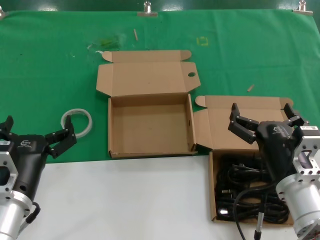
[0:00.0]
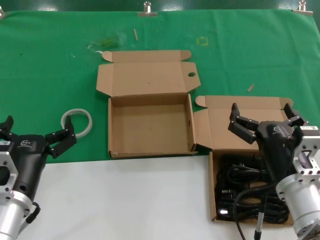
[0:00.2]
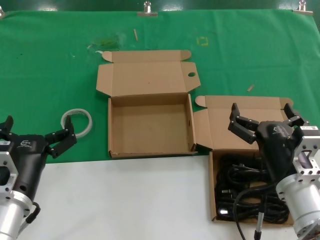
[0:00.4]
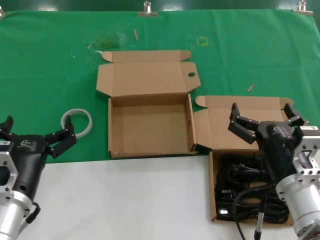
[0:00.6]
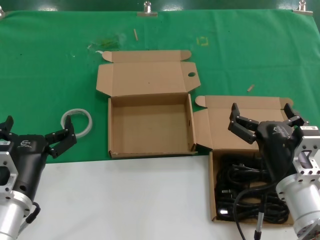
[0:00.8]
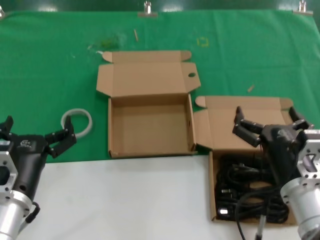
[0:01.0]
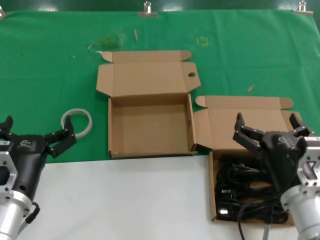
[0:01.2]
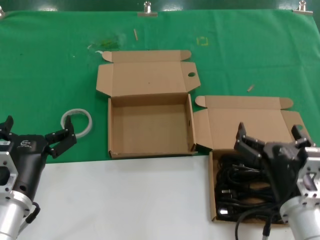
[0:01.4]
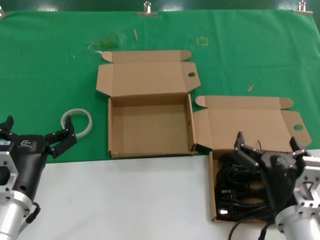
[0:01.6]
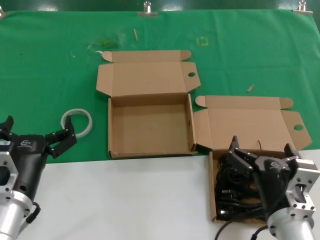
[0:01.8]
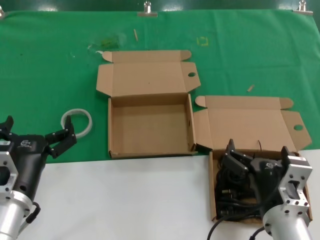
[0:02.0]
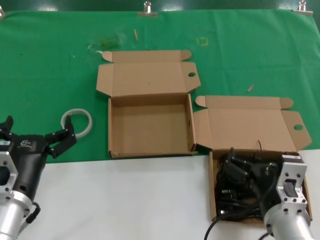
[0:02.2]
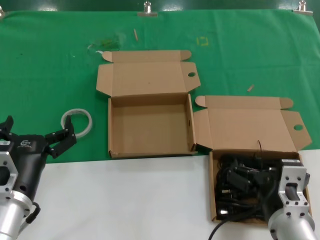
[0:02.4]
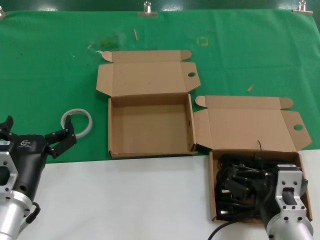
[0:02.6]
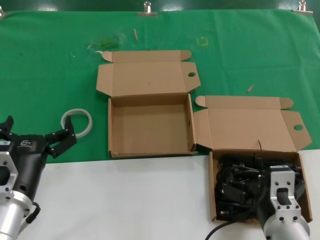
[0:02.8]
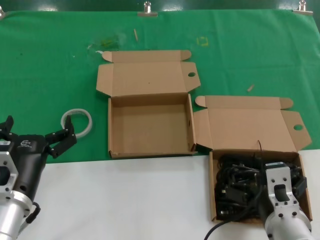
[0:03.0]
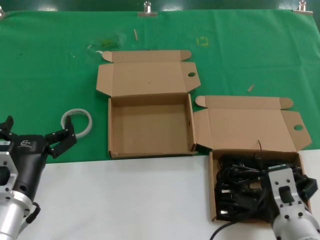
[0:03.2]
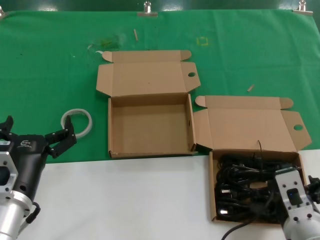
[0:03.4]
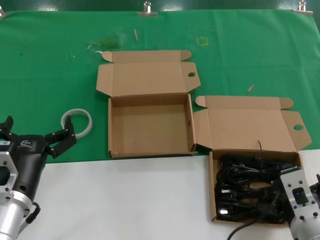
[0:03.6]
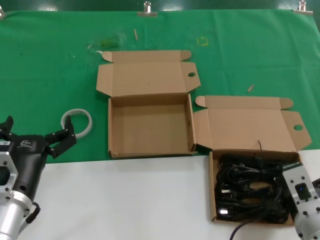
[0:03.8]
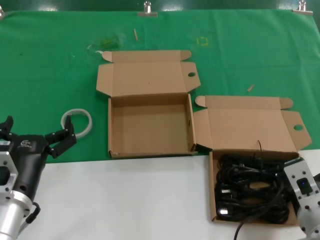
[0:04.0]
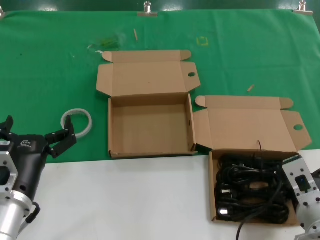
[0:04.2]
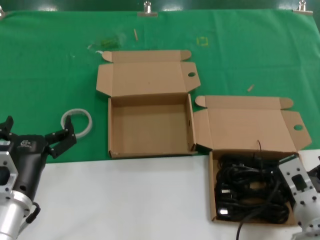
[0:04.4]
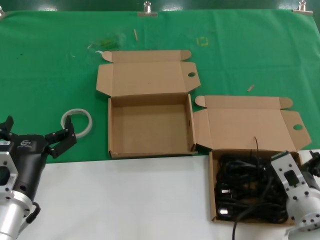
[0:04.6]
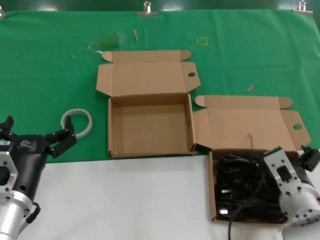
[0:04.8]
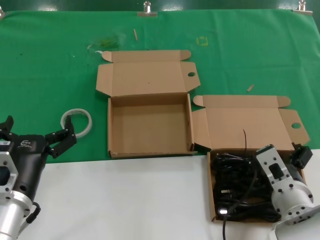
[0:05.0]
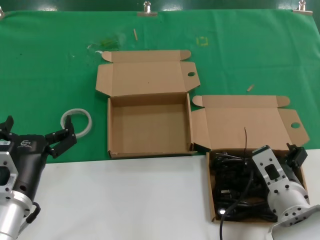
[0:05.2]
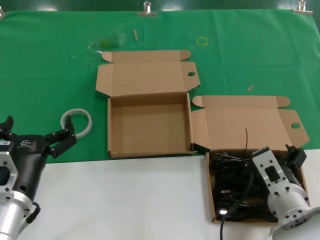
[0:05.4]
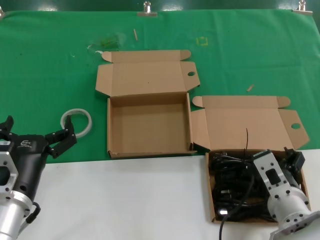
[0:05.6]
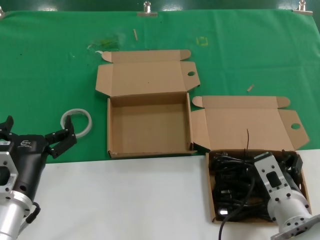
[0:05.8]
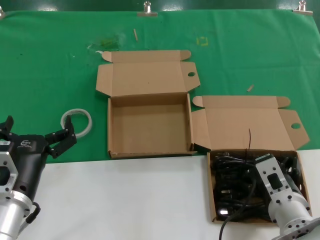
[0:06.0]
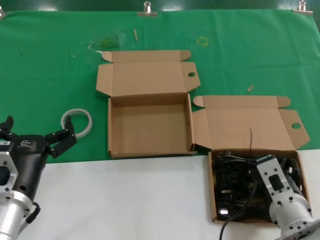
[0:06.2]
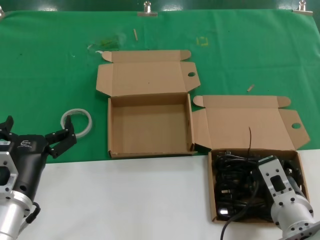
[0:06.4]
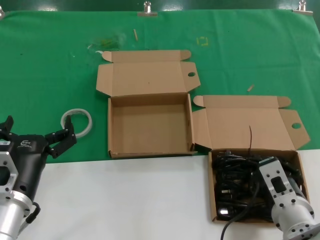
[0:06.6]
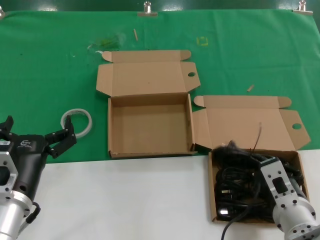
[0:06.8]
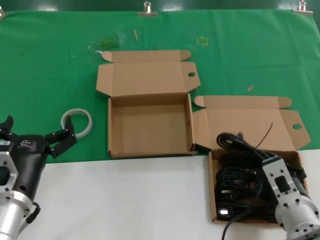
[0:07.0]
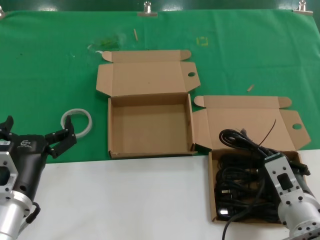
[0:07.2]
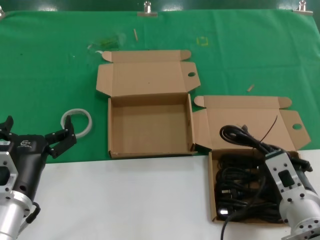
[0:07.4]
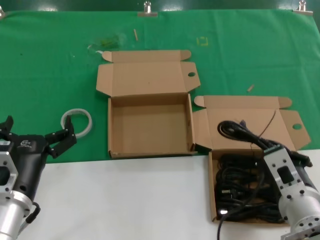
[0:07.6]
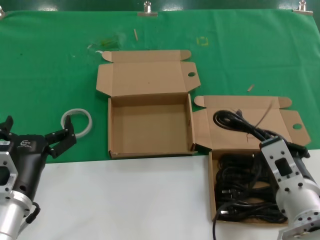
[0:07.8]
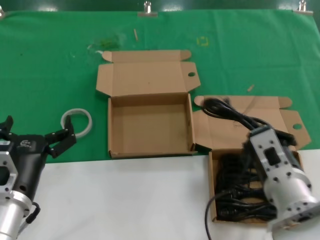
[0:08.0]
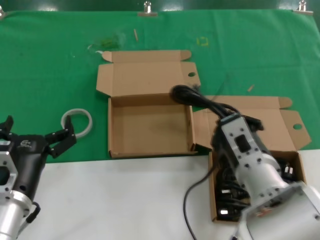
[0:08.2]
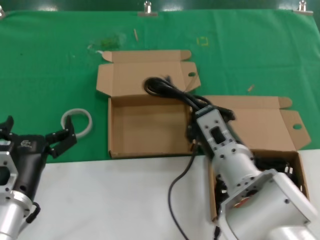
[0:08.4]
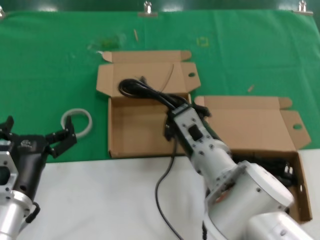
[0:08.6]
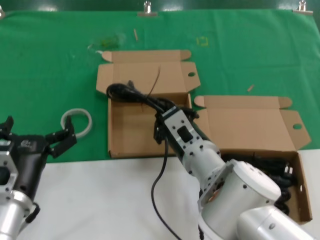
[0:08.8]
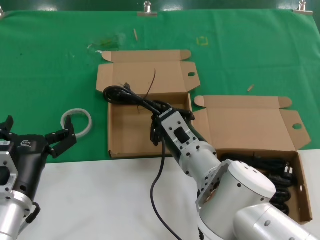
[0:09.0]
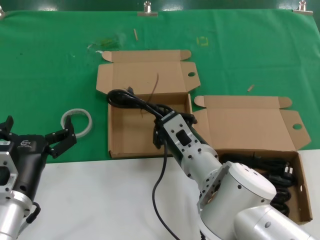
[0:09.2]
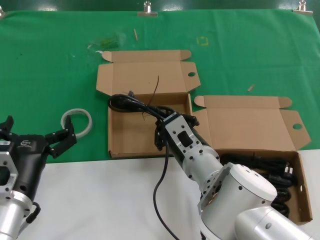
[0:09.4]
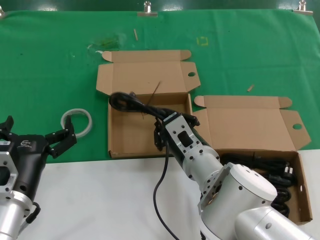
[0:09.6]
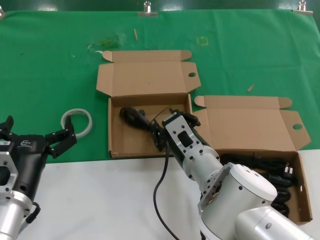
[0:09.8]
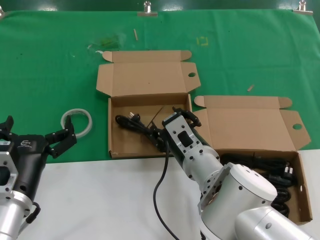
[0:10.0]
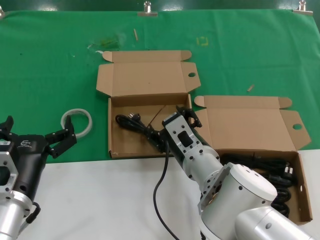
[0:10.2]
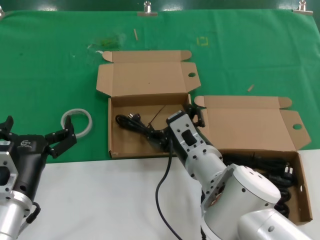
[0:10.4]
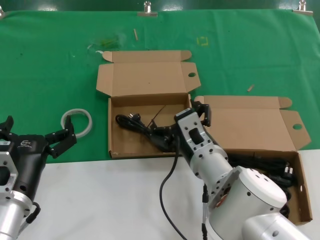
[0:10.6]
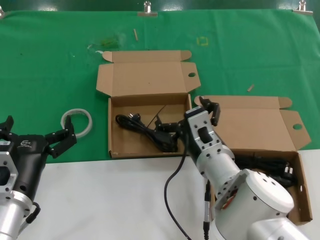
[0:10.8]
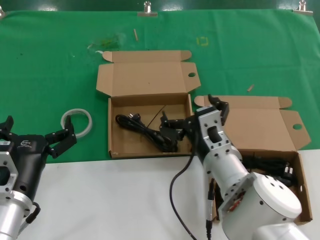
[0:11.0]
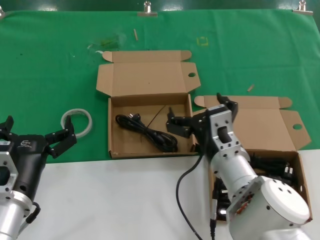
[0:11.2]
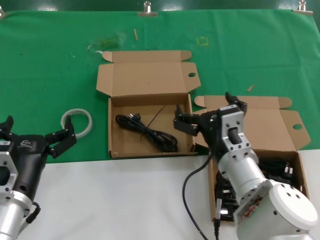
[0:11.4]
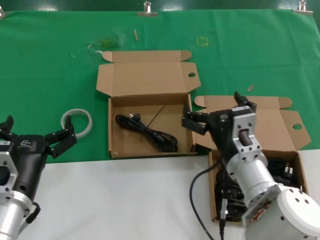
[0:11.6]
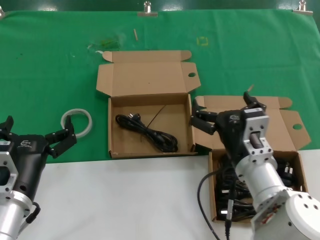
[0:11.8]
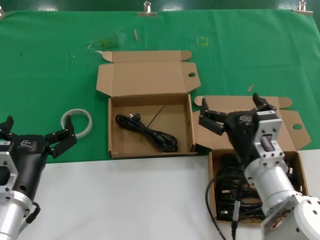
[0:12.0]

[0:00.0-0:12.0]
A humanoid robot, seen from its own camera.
Task of the whole recording: take the parts from the box containing them and put them into an empty box.
Step, 0:00.0 to 0:07.0: Grasp the data cable.
Step, 0:07.2 to 0:09.8: Place the data cable in the another box.
0:00.0 to 0:01.6: The right hand moves some 5 cm.
0:03.0 to 0:04.4: The right hand heads to the right, covering some 5 cm.
0:04.4 to 0:06.0: The hands move only a little.
0:06.0 to 0:07.6: The right hand shifts by approximately 5 cm.
0:07.6 to 0:09.0: The right hand is displaced to the left and forward by about 15 cm.
0:09.0 to 0:10.4: The two hands keep their place.
0:10.4 to 0:12.0: The right hand heads to the right, covering approximately 10 cm.

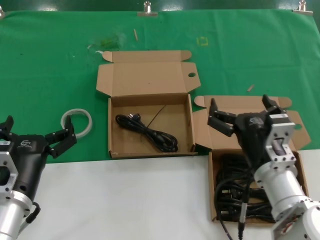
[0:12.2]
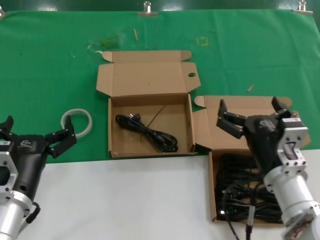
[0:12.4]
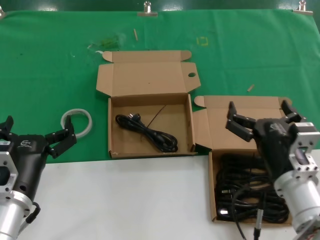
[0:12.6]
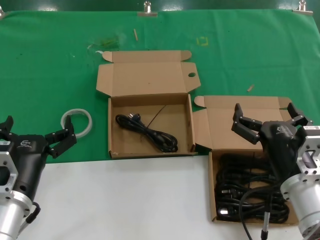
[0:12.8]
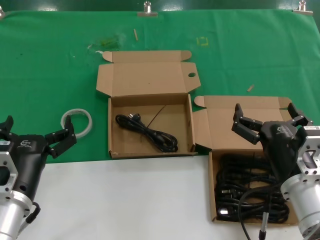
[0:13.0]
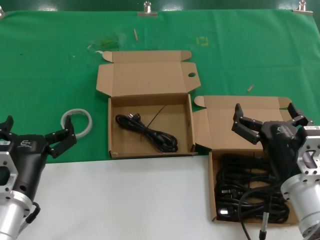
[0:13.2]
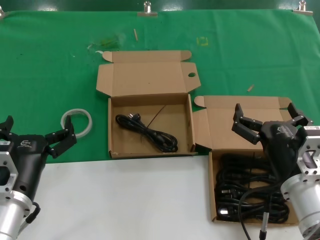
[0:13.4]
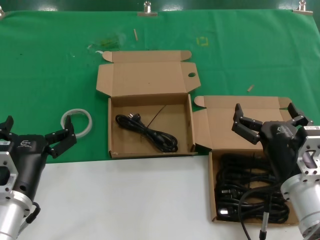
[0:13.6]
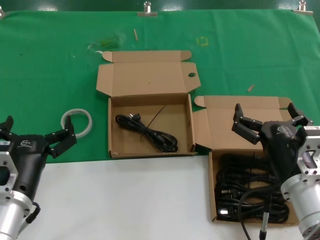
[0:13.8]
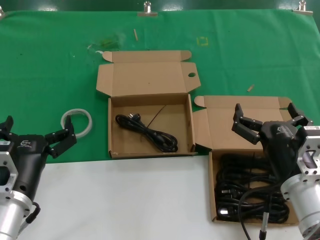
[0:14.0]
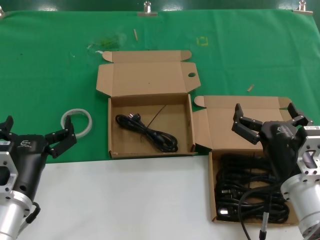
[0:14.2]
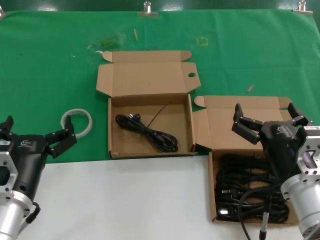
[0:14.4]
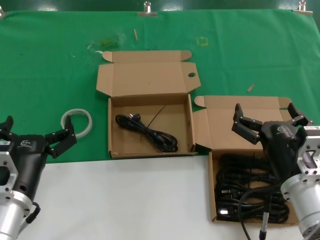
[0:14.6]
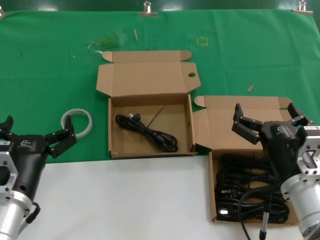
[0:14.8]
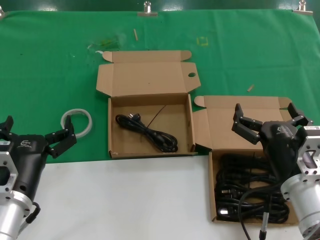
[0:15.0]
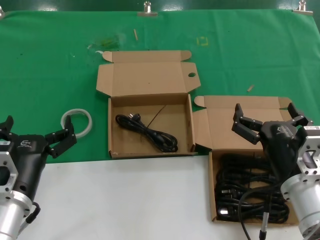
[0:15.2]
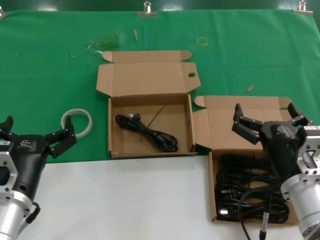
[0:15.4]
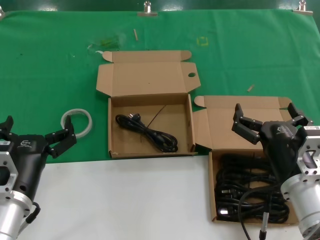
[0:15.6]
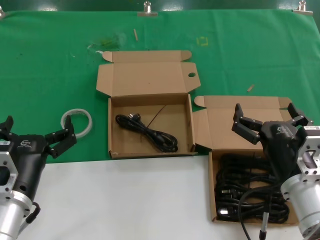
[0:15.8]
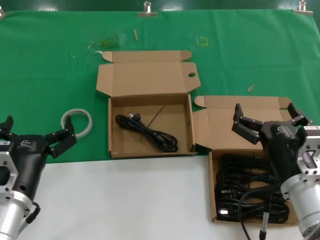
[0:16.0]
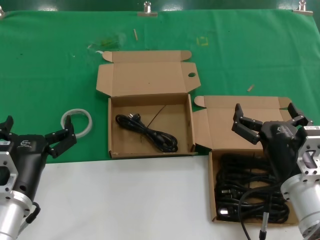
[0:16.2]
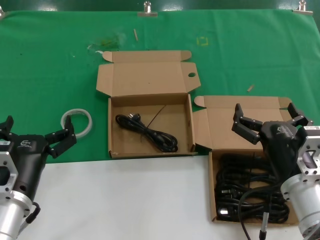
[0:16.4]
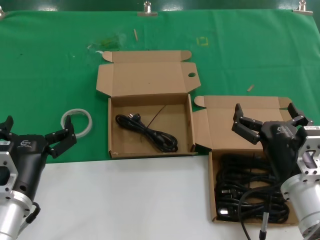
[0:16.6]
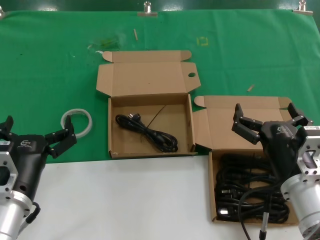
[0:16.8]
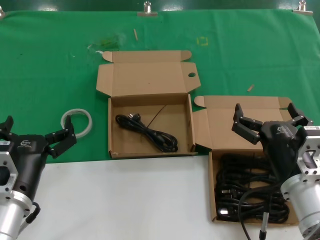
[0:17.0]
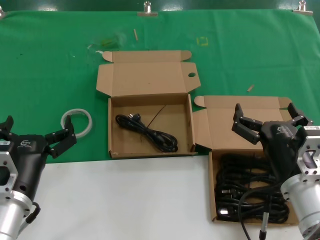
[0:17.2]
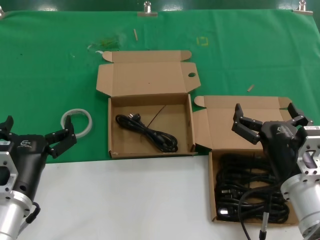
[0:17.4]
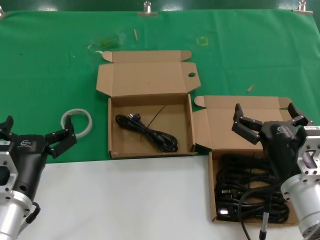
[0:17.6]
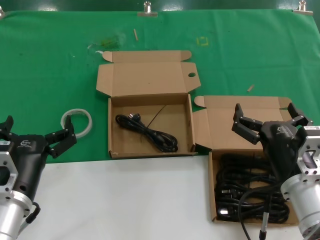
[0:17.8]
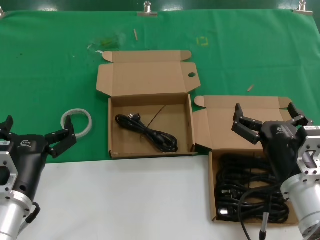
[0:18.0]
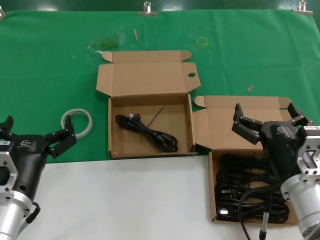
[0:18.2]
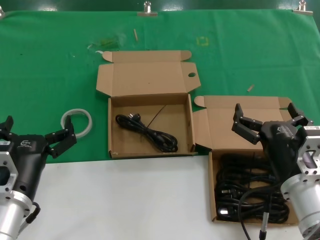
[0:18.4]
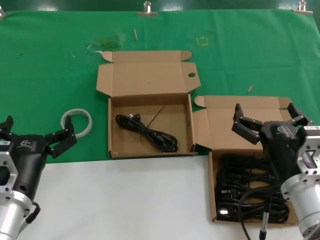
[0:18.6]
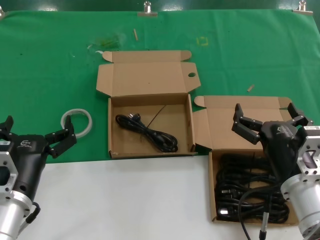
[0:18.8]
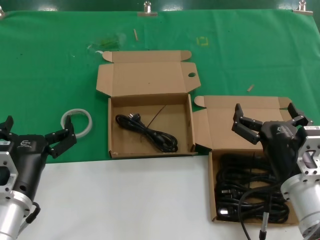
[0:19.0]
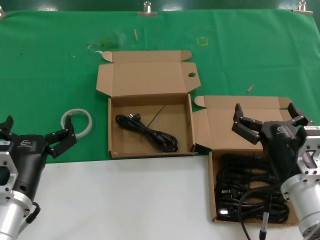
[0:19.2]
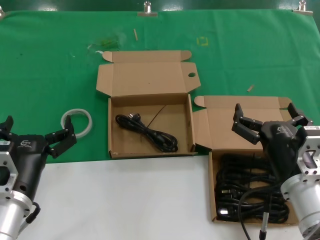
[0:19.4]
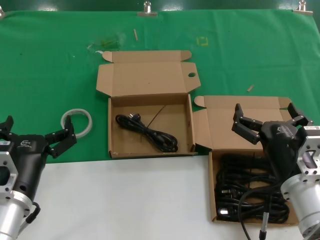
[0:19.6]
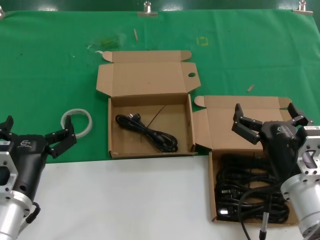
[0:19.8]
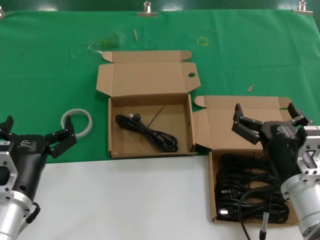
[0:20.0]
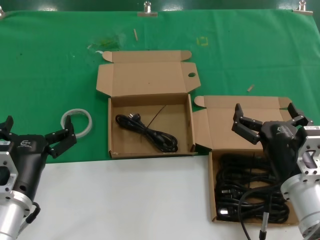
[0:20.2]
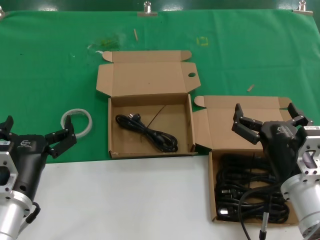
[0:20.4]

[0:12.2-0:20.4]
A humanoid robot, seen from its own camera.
Task of the whole recording: take the parts from the box containing them and put them into an empty box.
0:12.2 to 0:13.8: The hands make only small movements.
0:13.8 to 0:20.4: Both hands stay about where they are.

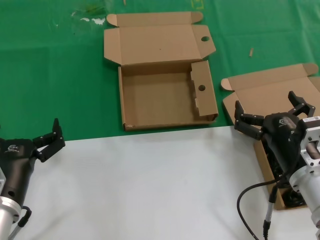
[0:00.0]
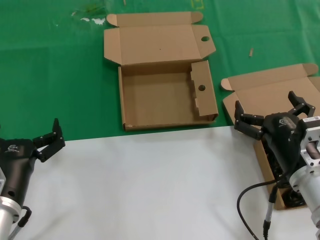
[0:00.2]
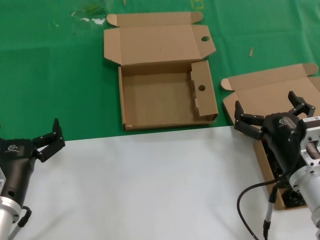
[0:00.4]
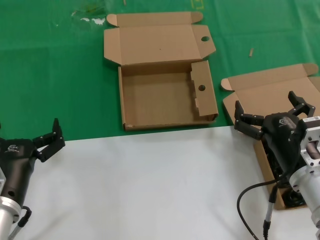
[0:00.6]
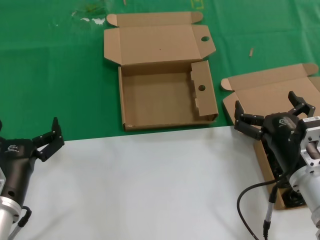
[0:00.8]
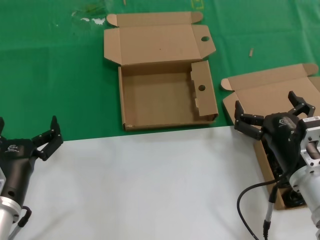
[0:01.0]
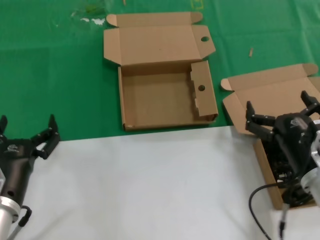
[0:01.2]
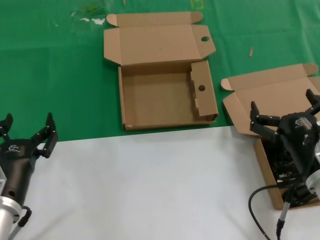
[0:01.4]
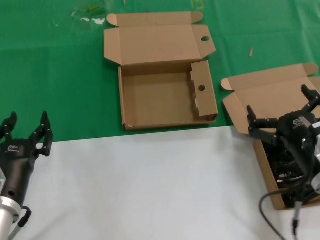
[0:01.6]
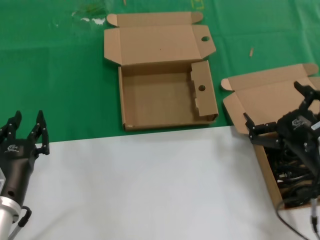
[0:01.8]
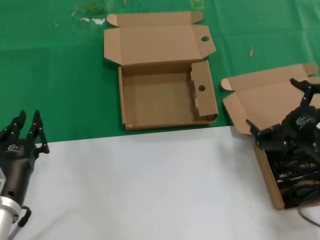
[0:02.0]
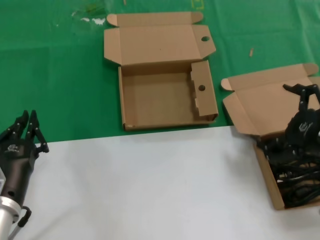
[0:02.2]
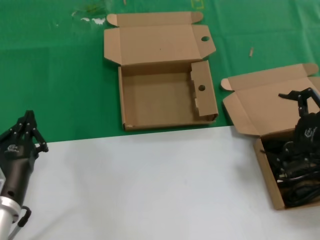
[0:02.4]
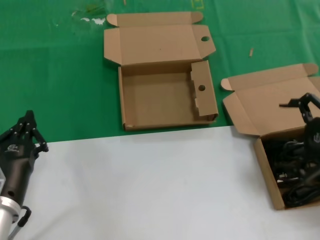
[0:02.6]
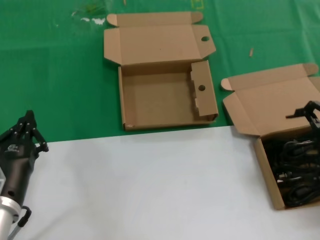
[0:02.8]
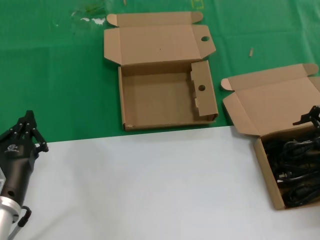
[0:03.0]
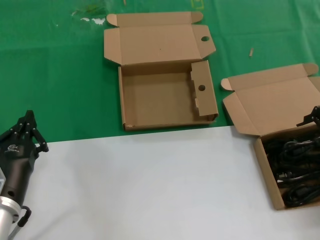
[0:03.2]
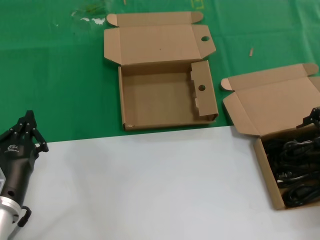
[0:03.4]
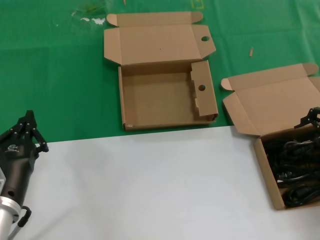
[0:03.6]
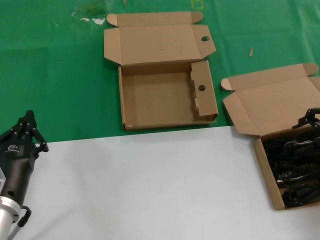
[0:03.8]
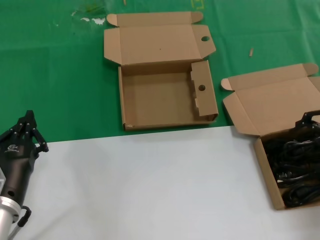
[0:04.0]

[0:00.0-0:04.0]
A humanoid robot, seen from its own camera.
Task of the whole recording: take the parts from the box containing them and put them into an empty box.
0:00.0 to 0:01.4: The hands make only small movements.
0:01.4 to 0:02.6: The right hand moves upward and to the right, some 20 cm.
0:02.6 to 0:04.0: The right hand shifts about 5 cm forward.
